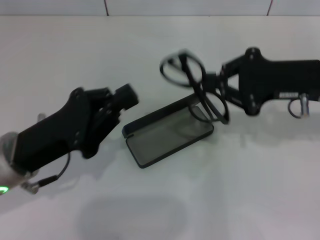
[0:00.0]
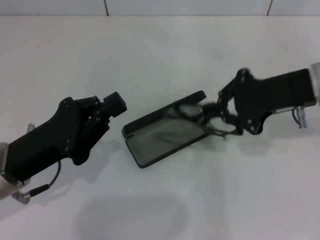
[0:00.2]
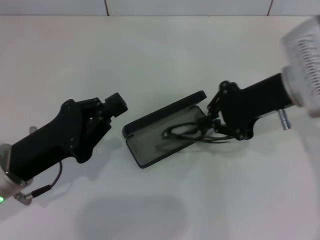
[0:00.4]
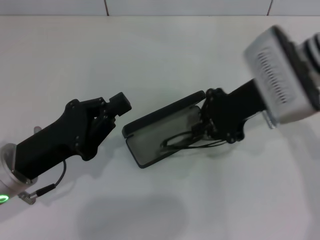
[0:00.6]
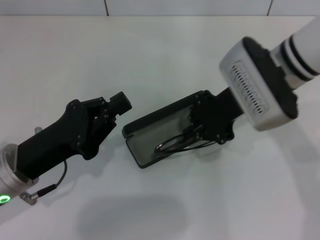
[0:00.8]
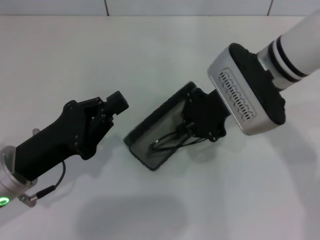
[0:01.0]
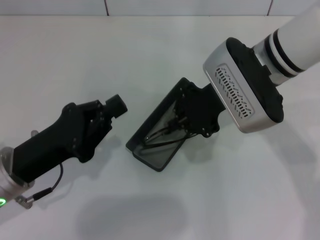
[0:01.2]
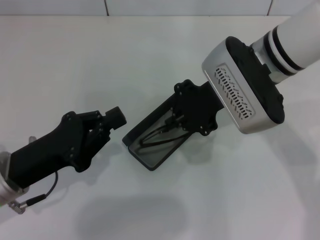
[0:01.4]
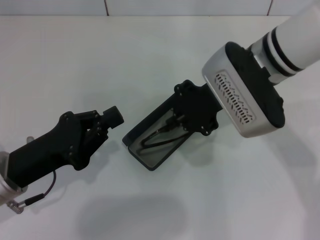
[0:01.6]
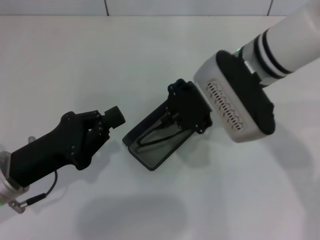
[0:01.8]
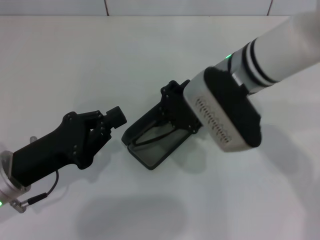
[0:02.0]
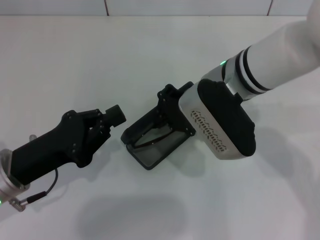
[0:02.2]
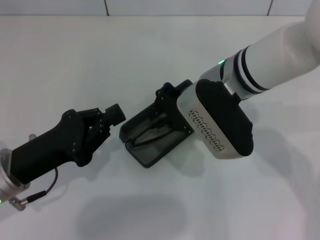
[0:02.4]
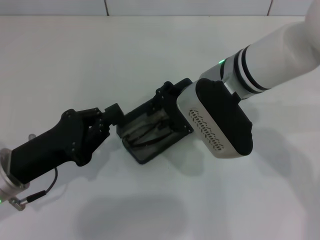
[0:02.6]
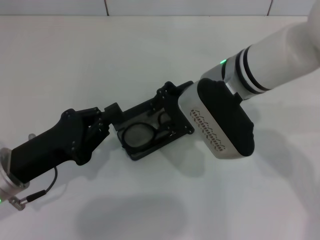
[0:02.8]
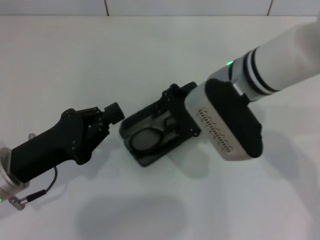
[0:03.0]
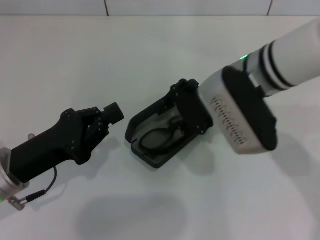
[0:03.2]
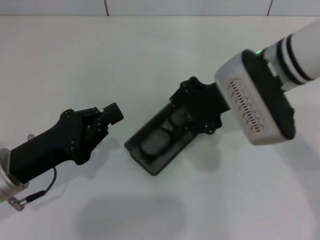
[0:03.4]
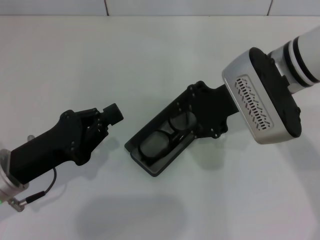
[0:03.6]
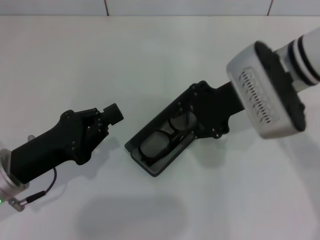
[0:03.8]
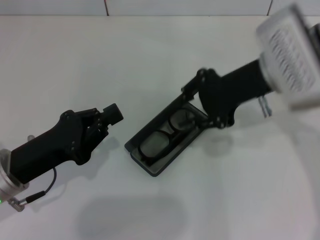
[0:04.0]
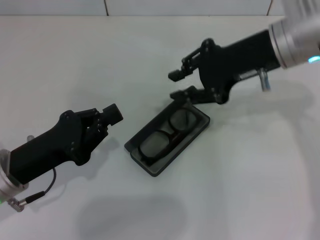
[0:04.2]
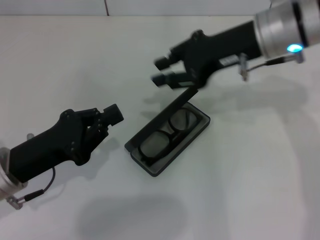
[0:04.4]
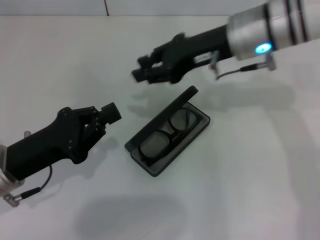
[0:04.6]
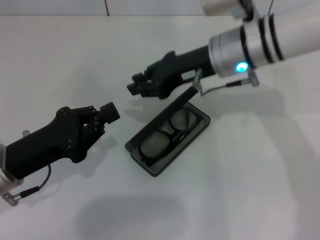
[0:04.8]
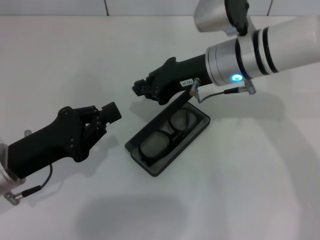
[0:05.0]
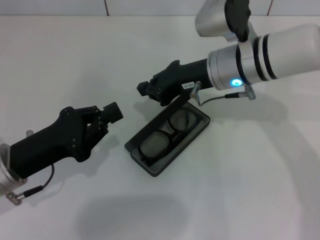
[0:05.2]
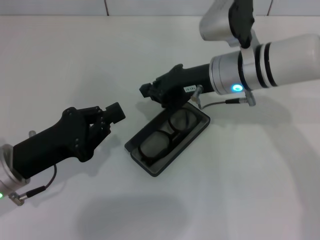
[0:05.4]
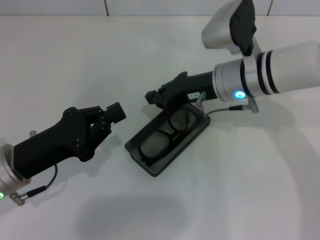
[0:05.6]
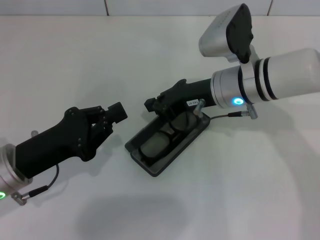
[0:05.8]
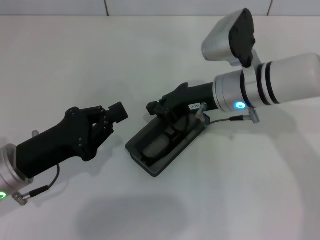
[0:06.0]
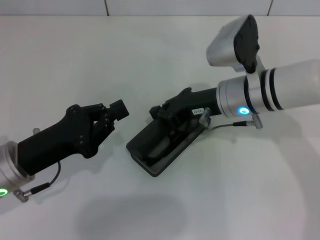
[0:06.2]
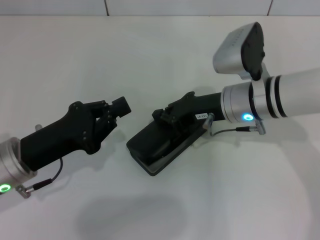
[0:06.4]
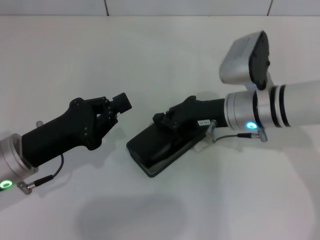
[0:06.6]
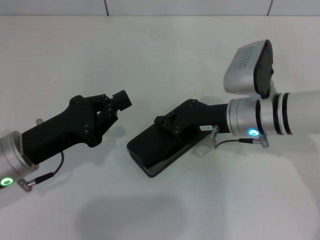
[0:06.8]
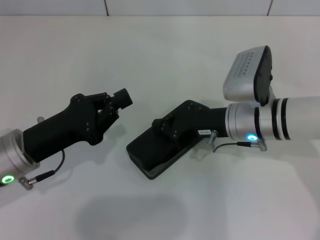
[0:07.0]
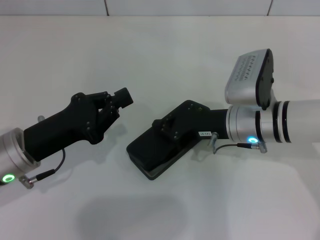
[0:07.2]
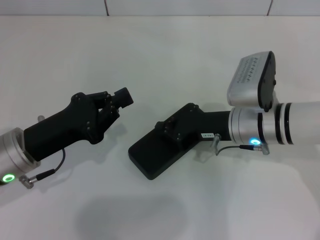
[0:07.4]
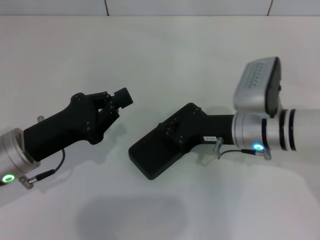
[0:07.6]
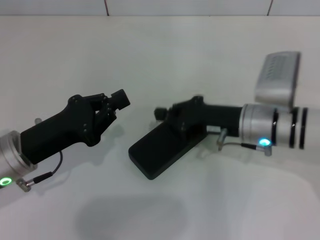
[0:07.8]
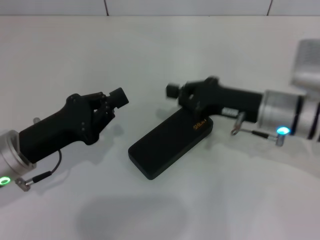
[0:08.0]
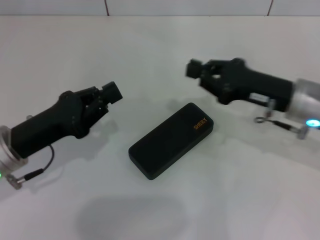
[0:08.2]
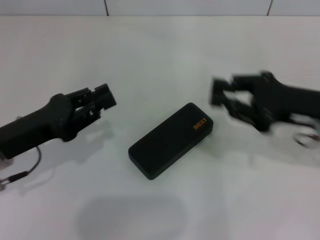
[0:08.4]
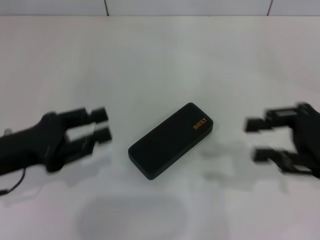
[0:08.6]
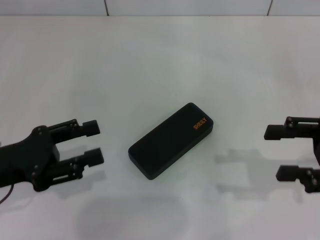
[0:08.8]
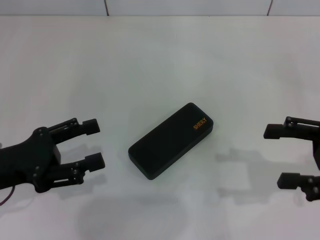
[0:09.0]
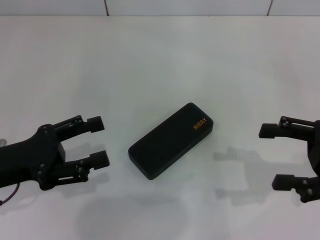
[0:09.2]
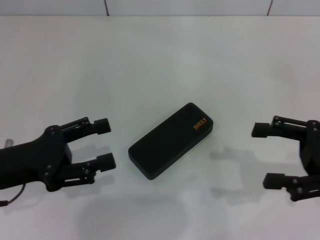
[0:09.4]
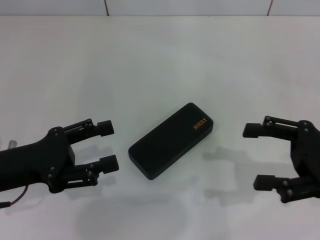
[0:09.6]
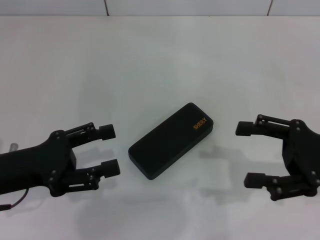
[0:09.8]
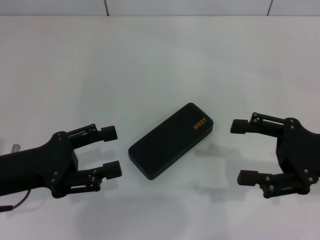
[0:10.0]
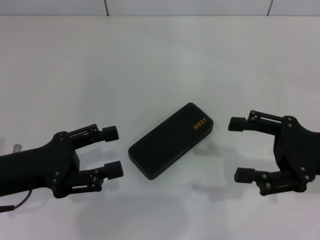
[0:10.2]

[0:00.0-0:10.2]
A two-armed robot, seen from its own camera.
Step, 0:00.0 to 0:03.8: Put the glasses into the case with your right hand.
Step, 0:04.0 to 0:07.8: Close the glasses case with your right hand.
0:00.0 to 0:01.4: The right gripper travels to the left by roughly 15 cm.
0:01.4 to 0:03.0: The grippers make only small movements.
0:03.0 to 0:04.4: The right gripper travels upward and to the right by approximately 10 cm.
0:04.4 to 0:05.8: The right gripper heads downward, covering some 10 cm.
0:05.8 to 0:07.2: The right gripper shifts by approximately 5 cm.
0:07.2 to 0:08.8: The left gripper shifts some 5 cm to the left, and opens up, while the right gripper shifts about 20 cm to the right, and opens.
0:08.8 to 0:10.2: The right gripper opens up, while the left gripper opens.
